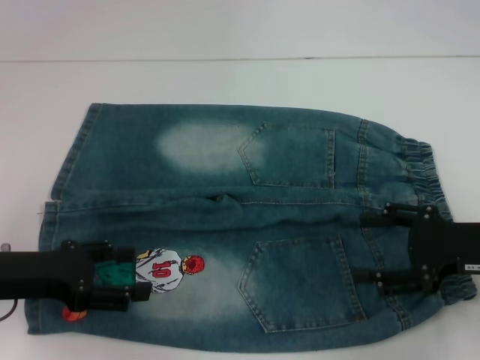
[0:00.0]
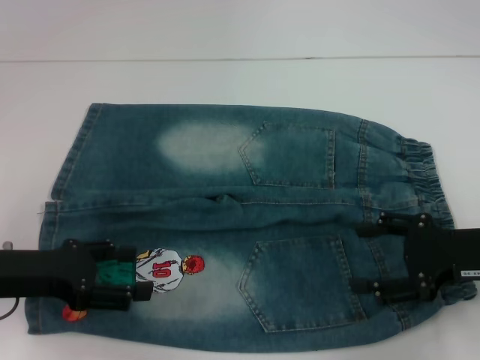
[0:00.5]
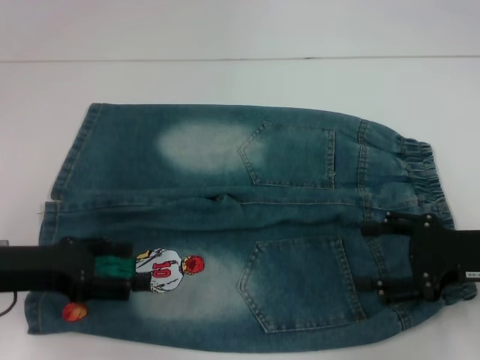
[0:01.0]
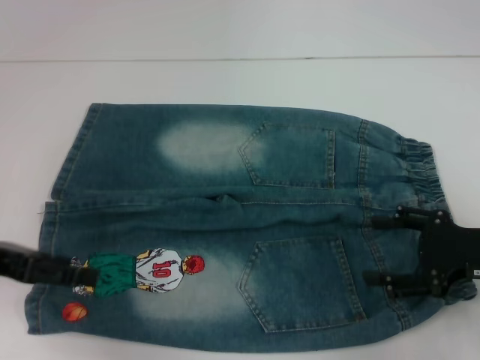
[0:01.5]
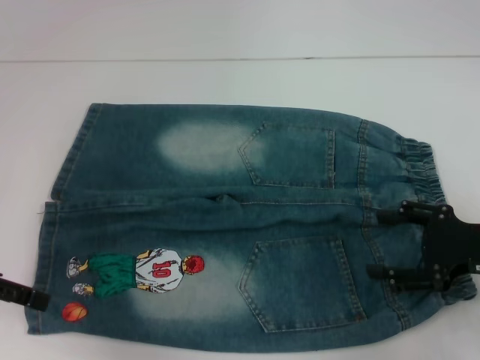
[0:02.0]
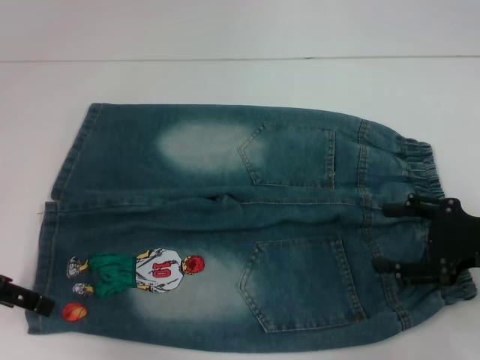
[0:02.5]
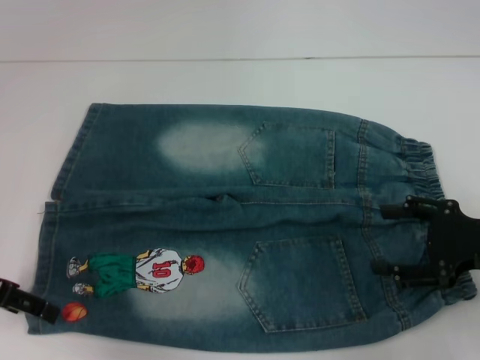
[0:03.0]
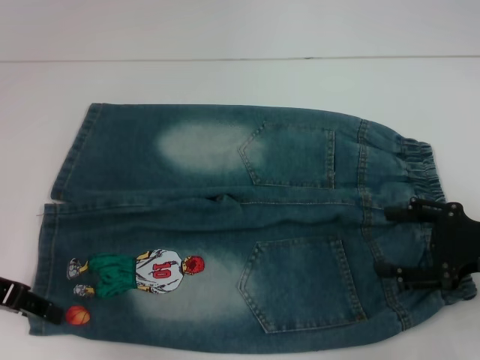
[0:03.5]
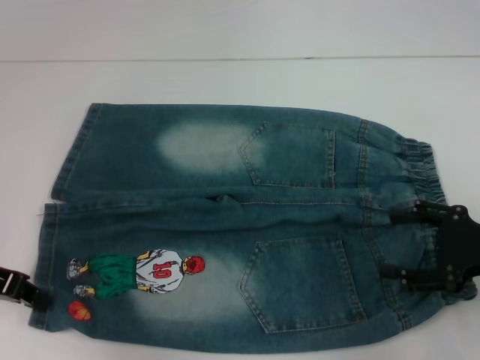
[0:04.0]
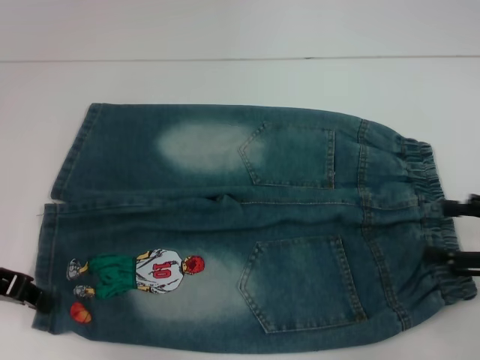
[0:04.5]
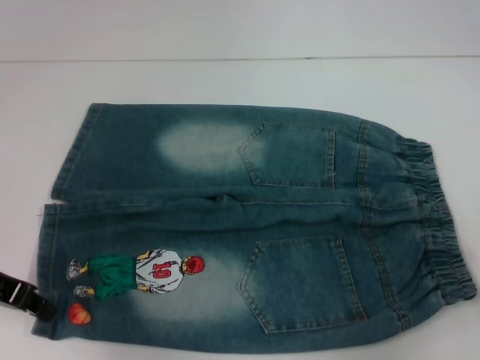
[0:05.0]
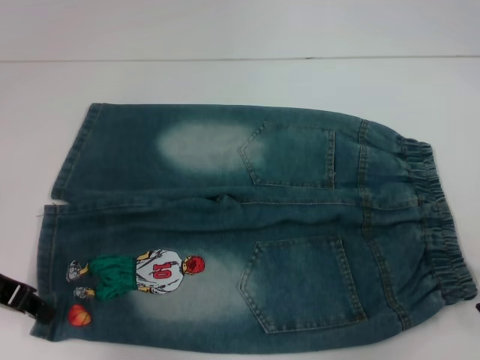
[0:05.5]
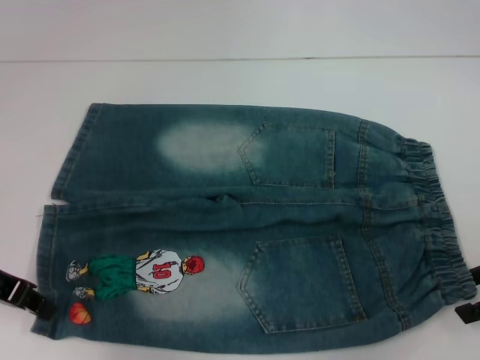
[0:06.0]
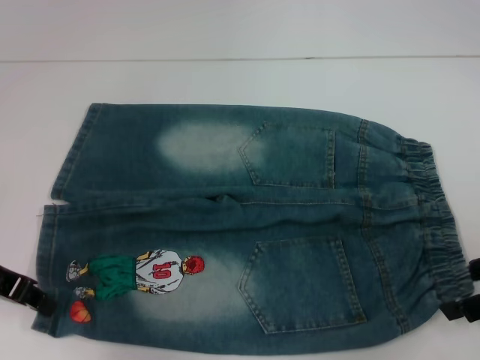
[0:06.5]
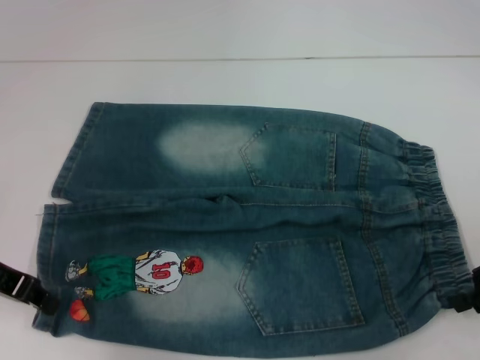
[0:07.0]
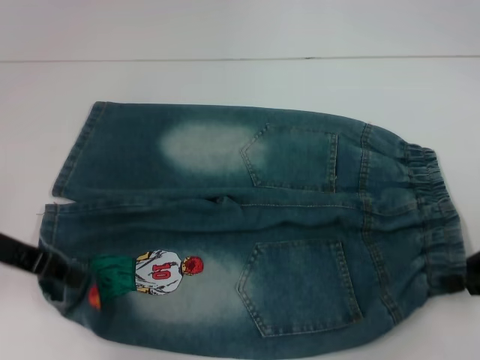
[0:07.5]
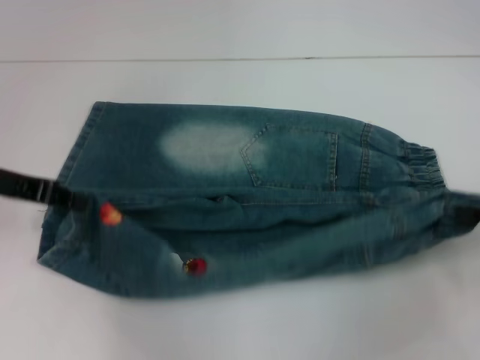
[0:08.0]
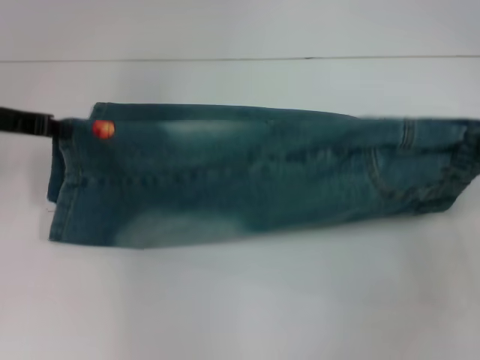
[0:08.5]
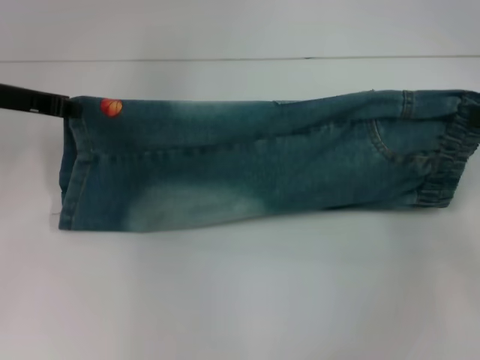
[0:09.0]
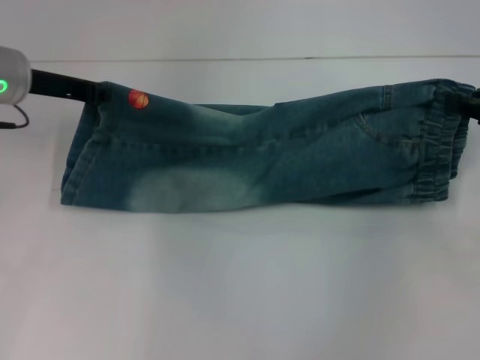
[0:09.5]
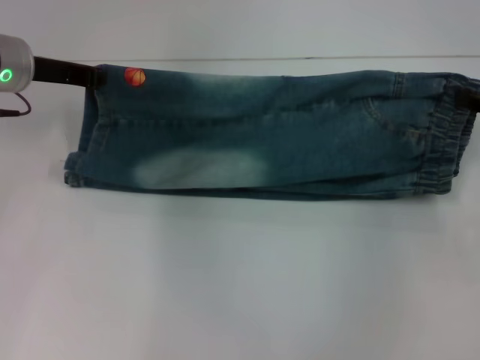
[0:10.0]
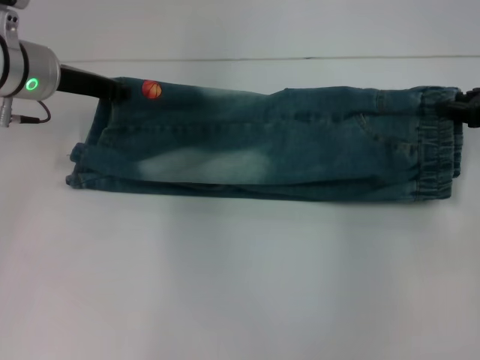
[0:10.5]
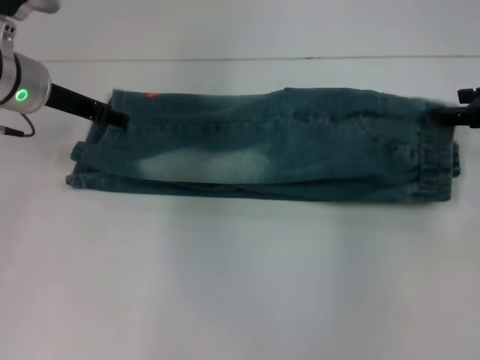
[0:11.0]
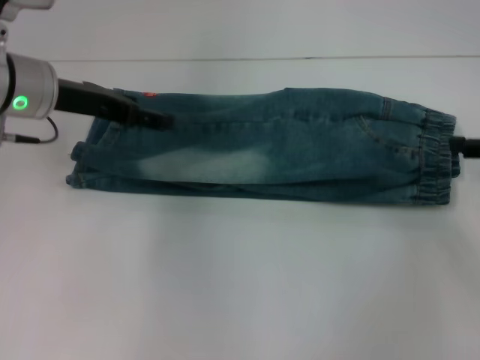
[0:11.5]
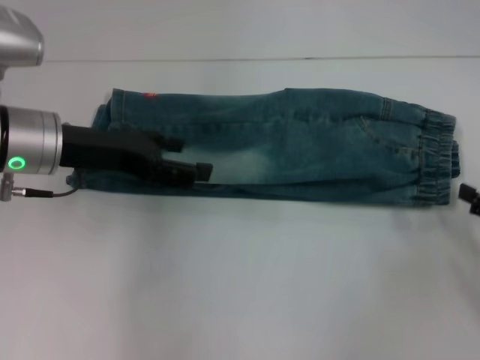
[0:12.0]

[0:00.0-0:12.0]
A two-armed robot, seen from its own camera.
Step, 0:00.0 to 0:04.0: Grab the lower left pant leg with your left hand.
Step, 0:04.5 to 0:07.0: Hold the lower right waistband with your right hand.
Step, 0:07.5 to 0:11.0: Fold upward with your right hand.
0:00.0 to 0:02.0: The left gripper heads upward, covering some 5 cm.
0:02.0 to 0:04.0: The left gripper closes.
0:06.0 to 0:08.0: The left gripper moves approximately 5 cm, while the right gripper closes its fingers.
0:08.0 to 0:10.0: The right gripper moves forward, about 10 cm; the left gripper travels forward and to the right by about 10 cm.
0:10.0 to 0:12.0: The left gripper shifts approximately 10 cm backward, and opens up. Meanwhile the right gripper travels backward and downward by approximately 15 cm, and opens.

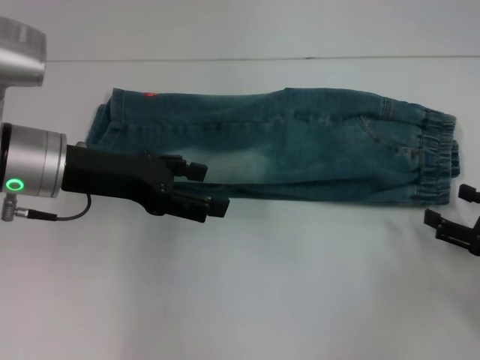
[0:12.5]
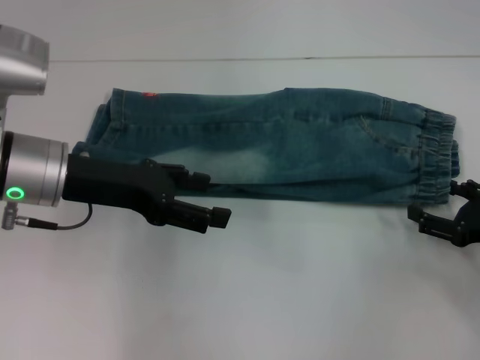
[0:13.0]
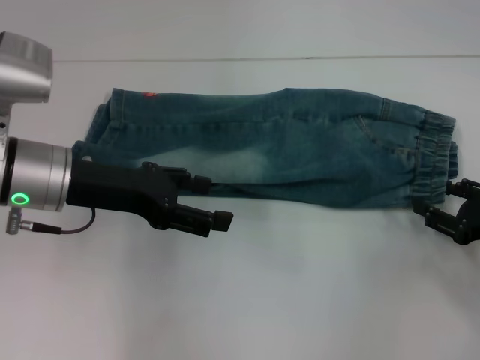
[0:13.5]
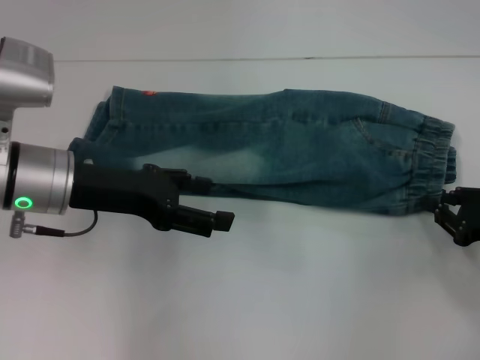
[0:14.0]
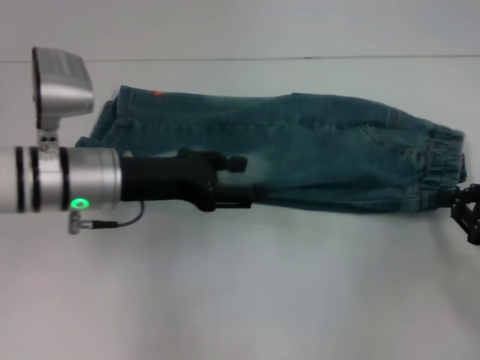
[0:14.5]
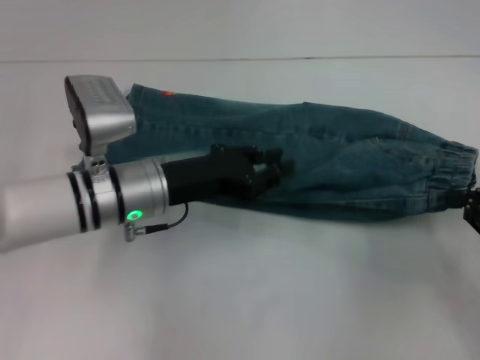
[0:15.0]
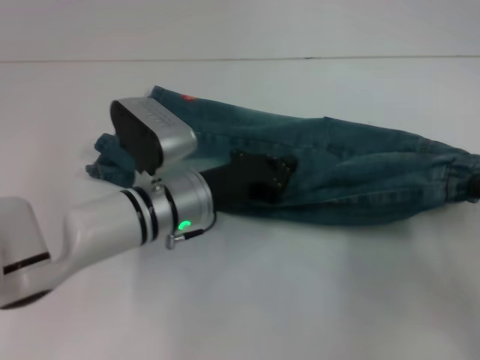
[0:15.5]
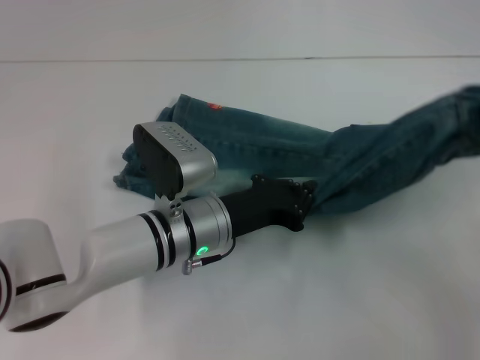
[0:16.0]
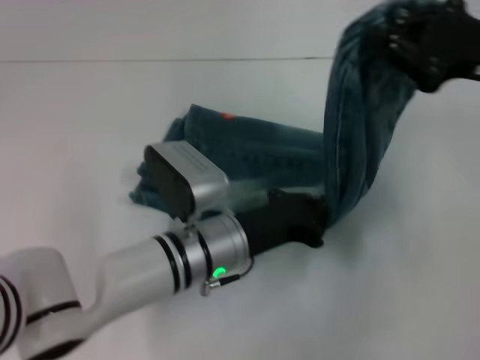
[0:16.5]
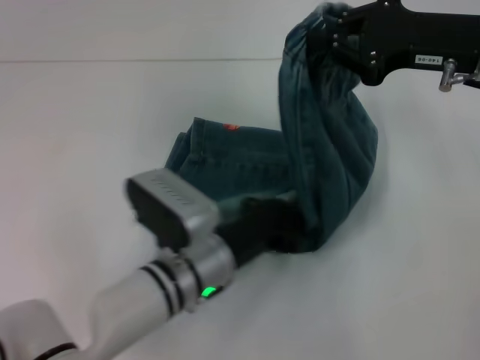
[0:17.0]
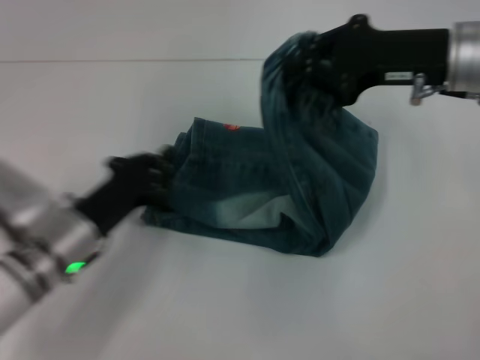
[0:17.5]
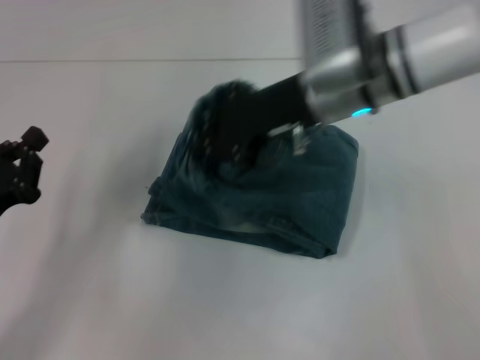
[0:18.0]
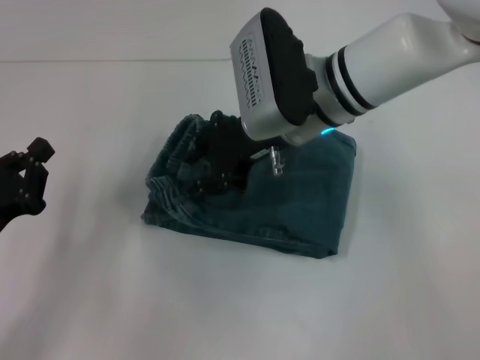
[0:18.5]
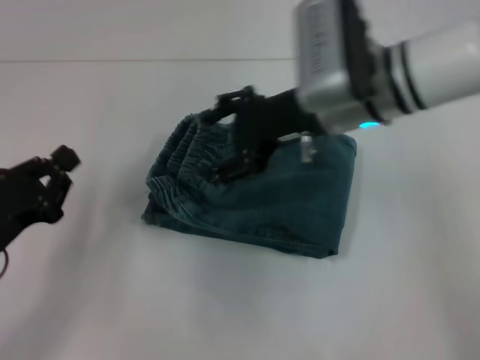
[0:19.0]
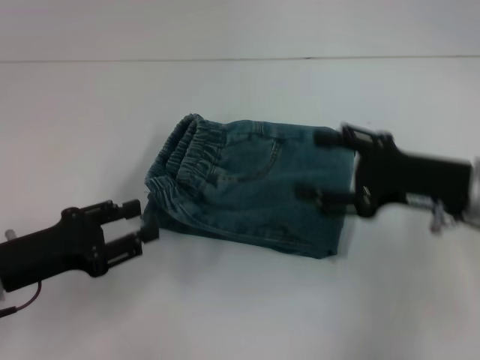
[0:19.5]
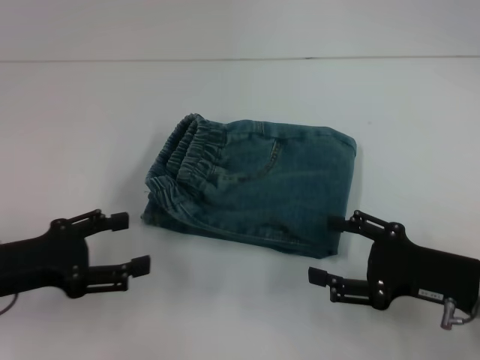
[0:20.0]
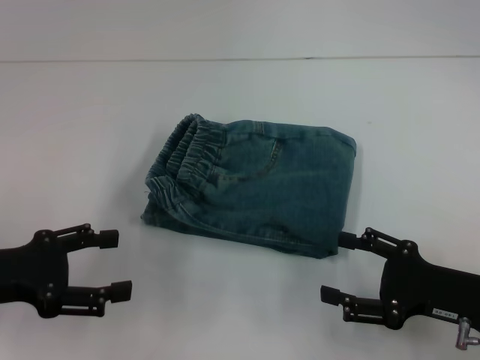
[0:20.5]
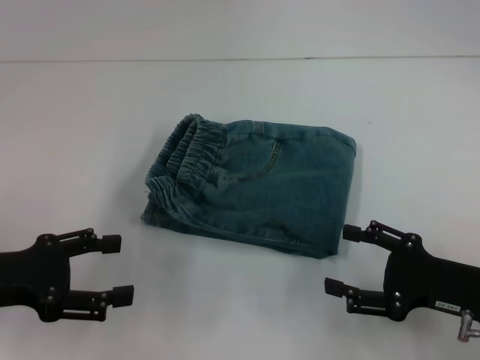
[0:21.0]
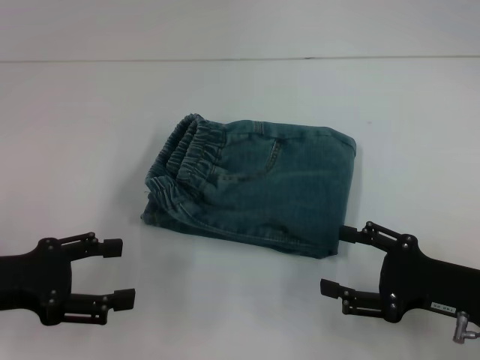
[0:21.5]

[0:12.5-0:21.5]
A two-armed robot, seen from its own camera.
Step, 0:12.5 to 0:14.0: Grab the waistband with your right hand.
Step, 0:14.5 to 0:17.0: Press the middle of the pants with your left hand.
Step, 0:17.5 to 0:18.5: Fold to the left with your right hand.
0:12.5 to 0:14.5: The left gripper ends up some 5 cm from where it was. Meanwhile the right gripper closes.
0:14.5 to 0:17.0: The left gripper is displaced to the right, downward and backward by some 15 cm, and closes its fingers. The right gripper travels upward, forward and to the left by approximately 20 cm.
0:17.0 to 0:19.5: The right gripper moves downward and backward, about 10 cm, travels to the left and back again, about 15 cm each way, and opens up, while the left gripper travels to the left by roughly 20 cm.
0:19.5 to 0:21.5: The left gripper opens its fingers, while the right gripper shifts roughly 10 cm backward and downward.

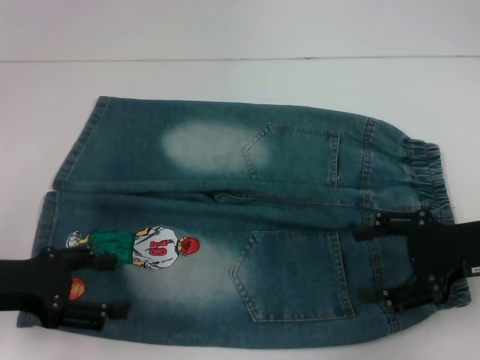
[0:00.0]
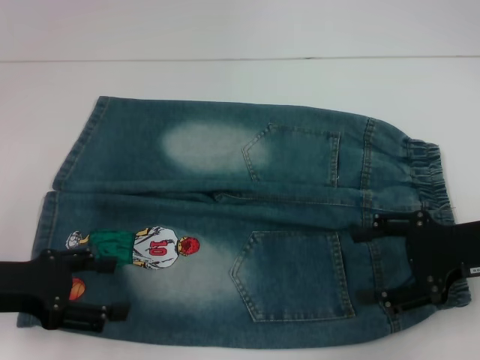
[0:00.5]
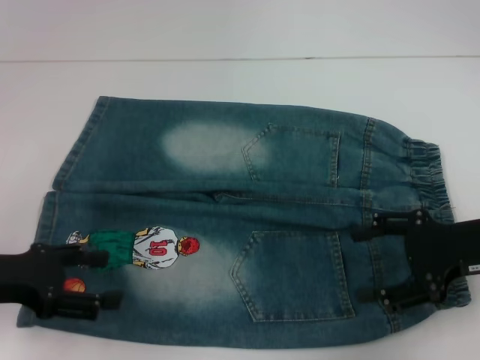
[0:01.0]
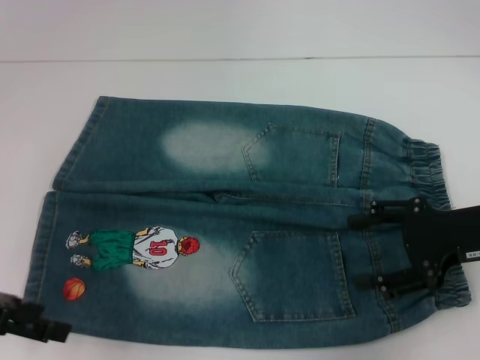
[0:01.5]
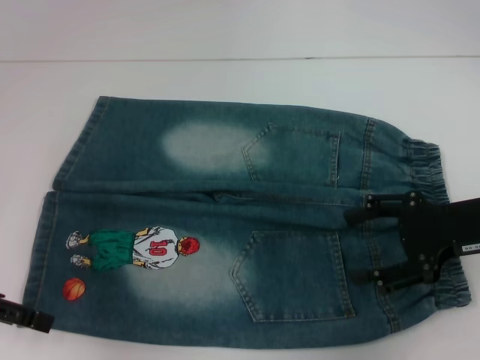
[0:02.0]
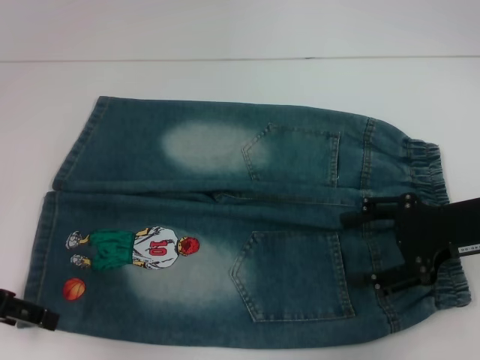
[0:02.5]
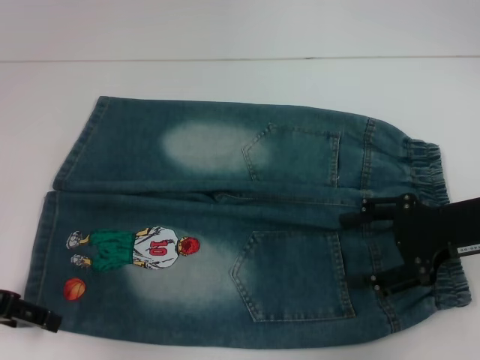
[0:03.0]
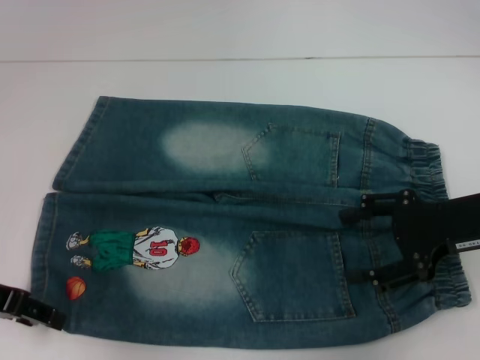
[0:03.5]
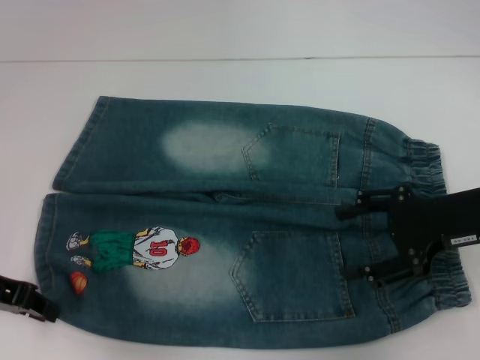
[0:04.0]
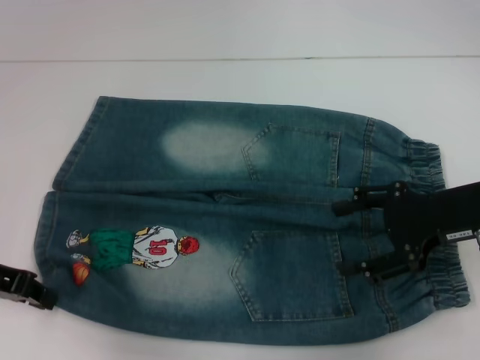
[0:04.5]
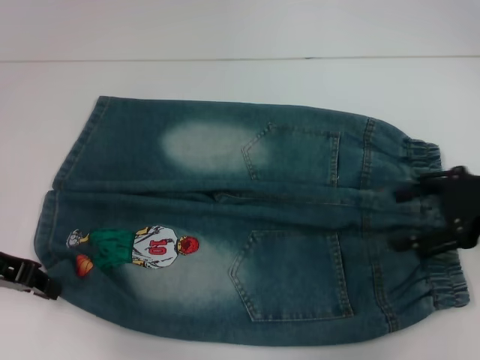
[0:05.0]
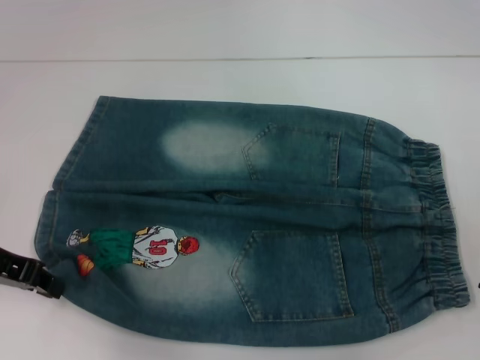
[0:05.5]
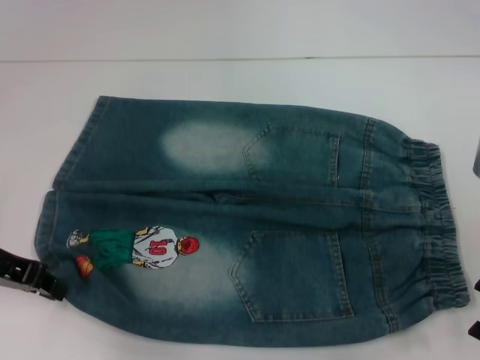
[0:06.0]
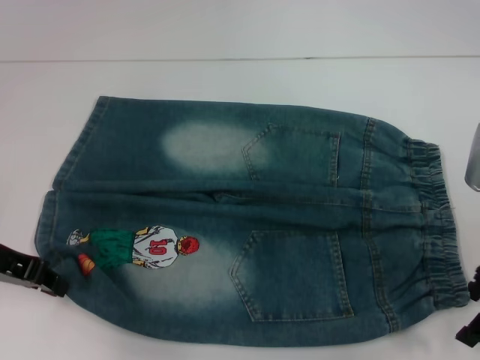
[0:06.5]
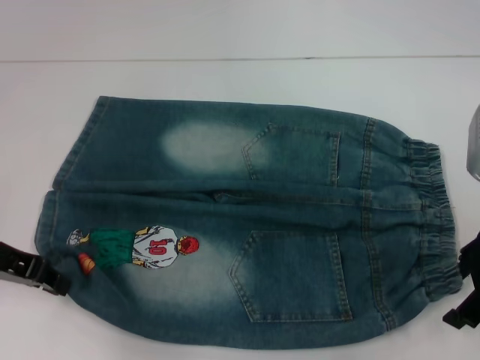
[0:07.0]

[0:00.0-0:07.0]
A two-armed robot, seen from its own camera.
Step, 0:00.0 to 0:03.5: Grab the lower left pant leg with your left hand.
0:00.0 to 0:02.0: The left gripper moves some 5 cm.
0:02.0 to 0:03.5: The grippers move only a little.
0:03.5 to 0:05.0: The left gripper closes.
